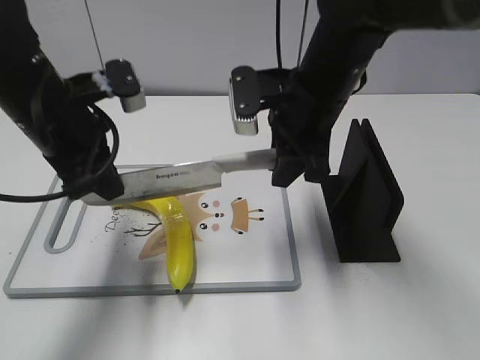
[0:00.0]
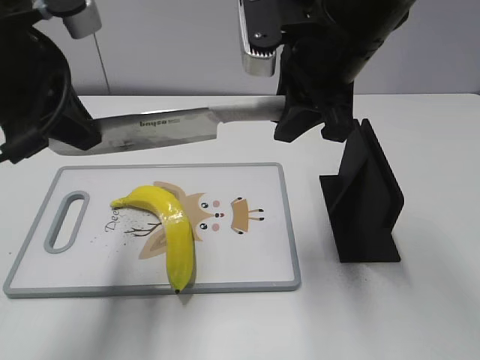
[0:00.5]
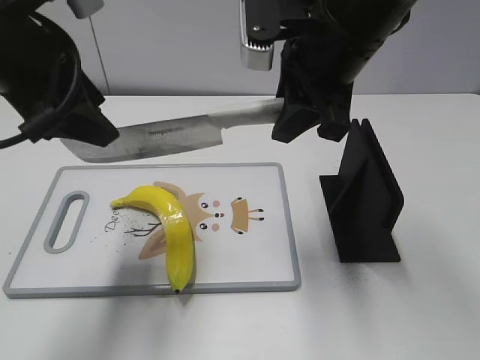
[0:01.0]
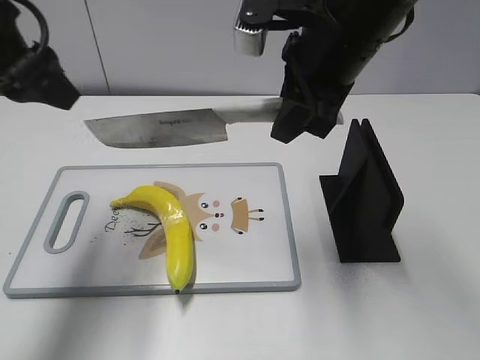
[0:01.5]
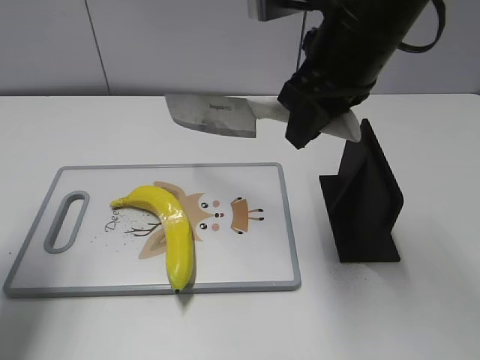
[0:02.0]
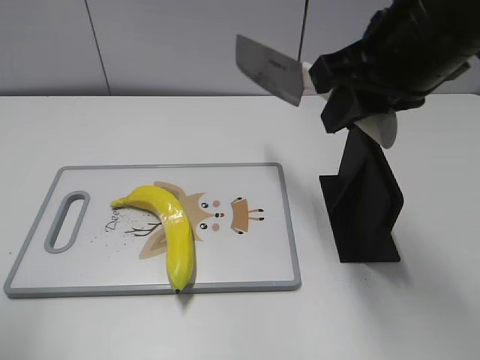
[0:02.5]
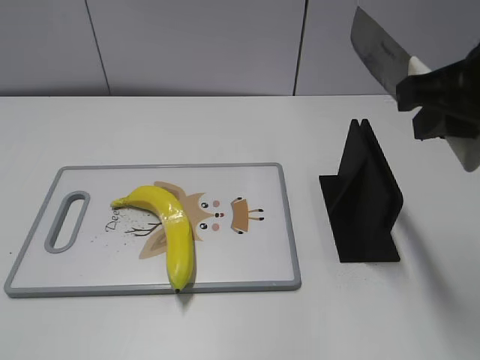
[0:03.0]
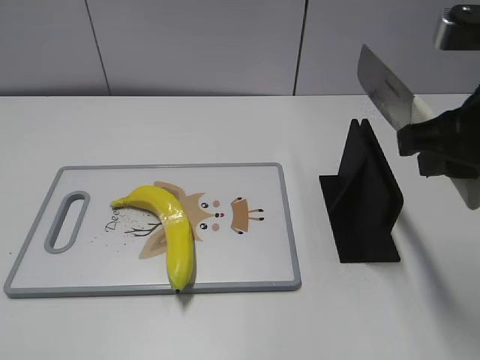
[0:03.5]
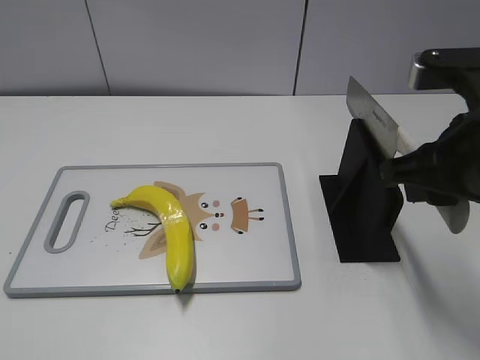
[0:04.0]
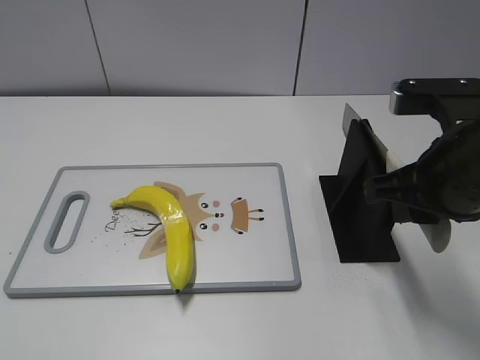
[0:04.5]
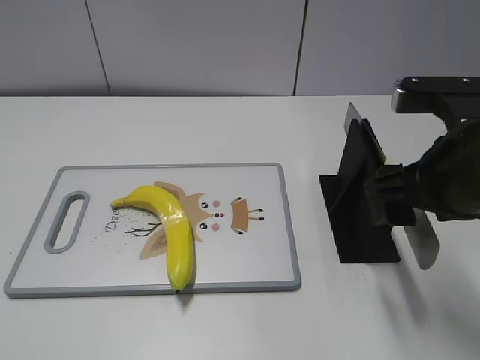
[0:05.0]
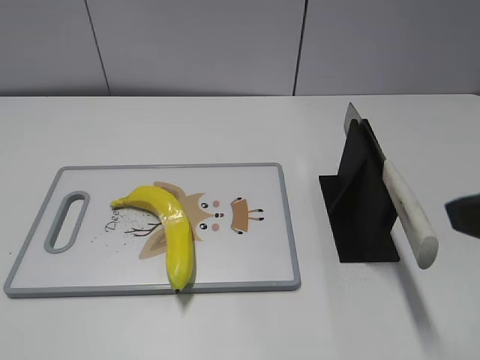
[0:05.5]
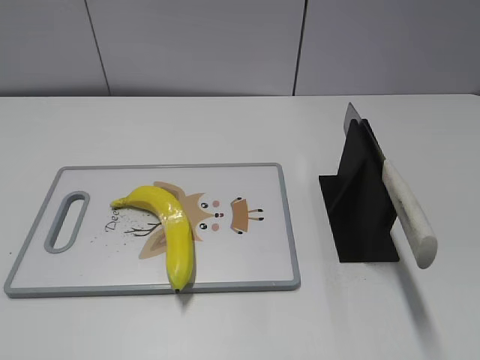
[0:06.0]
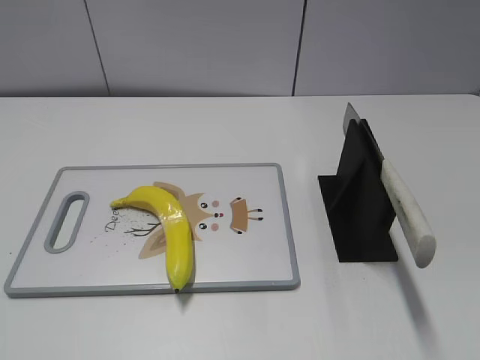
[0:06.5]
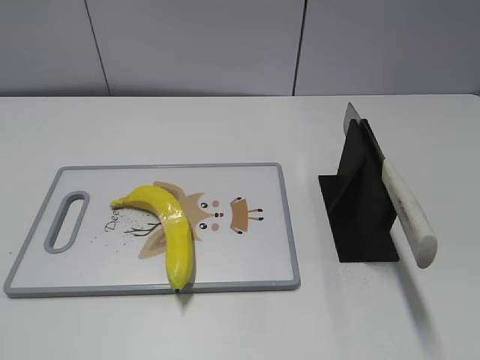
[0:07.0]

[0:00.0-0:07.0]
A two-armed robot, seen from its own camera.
Task of the whole recording: cut plastic banana.
Step, 0:03.0 to 0:04.0: Secure the blade with your left hand.
Step, 0:04.5 to 0:07.0: Place the knife on the storage rack with your right hand.
0:00.0 to 0:02.0: The left gripper travels to the left and upward by about 15 cm, and opens, while the right gripper travels upward by approximately 10 cm.
0:02.0 to 0:03.5: The left gripper travels backward by approximately 25 cm. The right gripper is displaced to the right and backward by approximately 15 cm.
0:03.5 to 0:05.0: The right gripper is displaced downward by roughly 5 cm, and opens.
0:05.0 to 0:07.0: The right gripper moves backward and to the right, roughly 25 cm.
